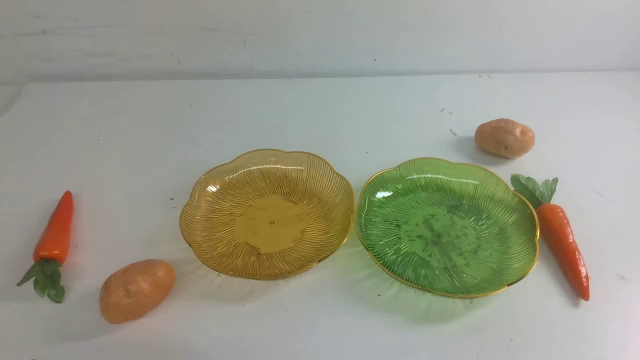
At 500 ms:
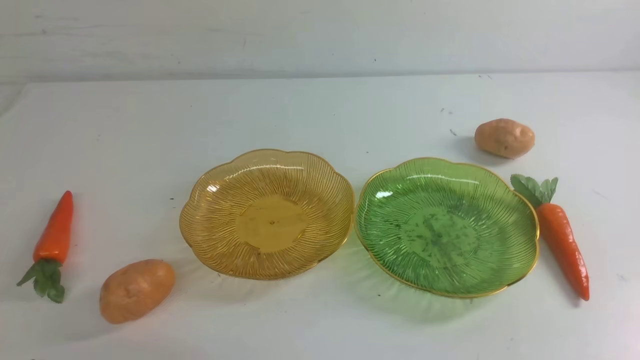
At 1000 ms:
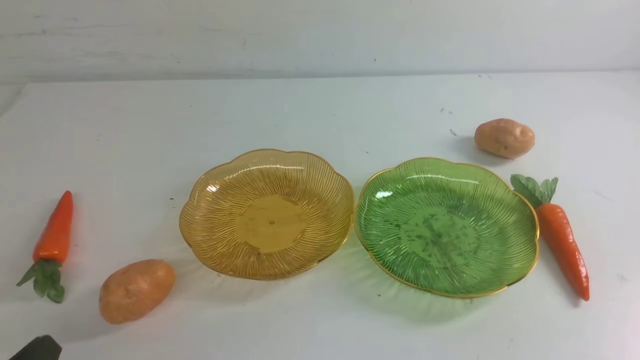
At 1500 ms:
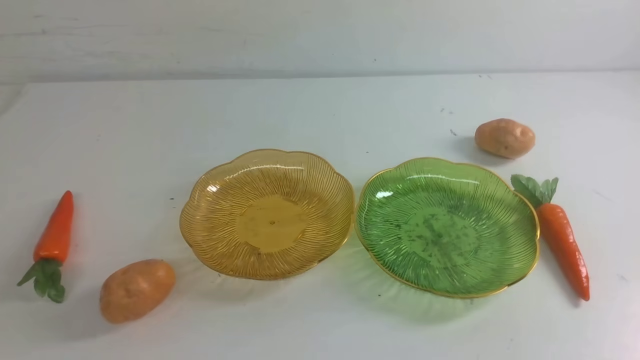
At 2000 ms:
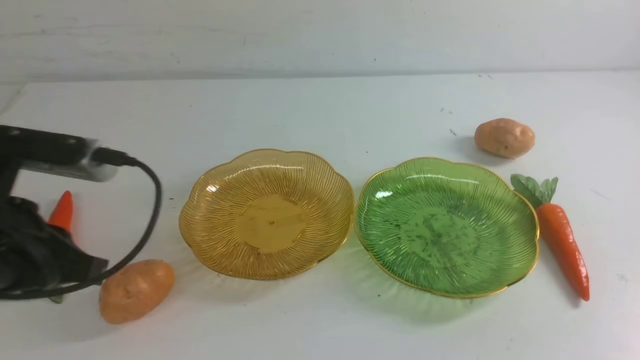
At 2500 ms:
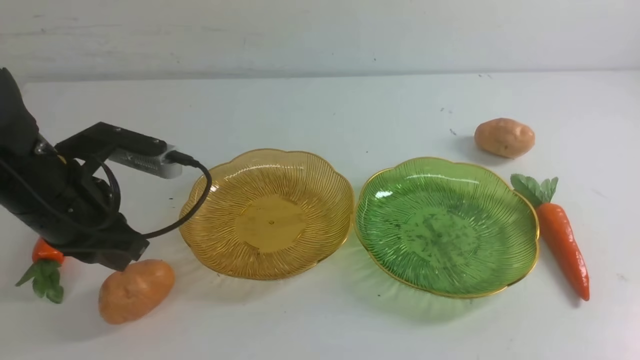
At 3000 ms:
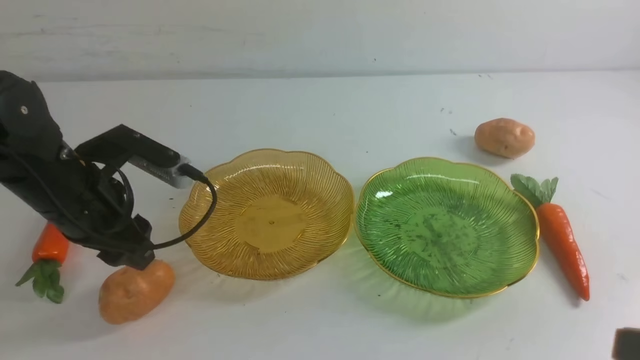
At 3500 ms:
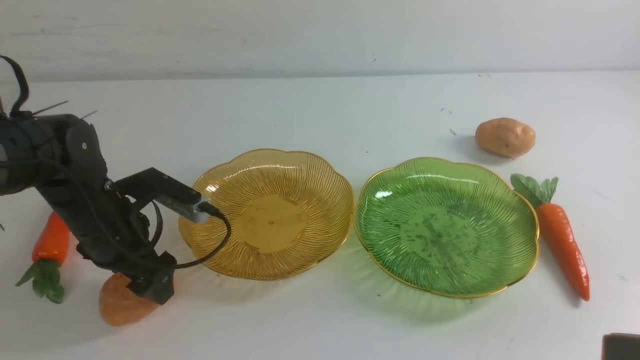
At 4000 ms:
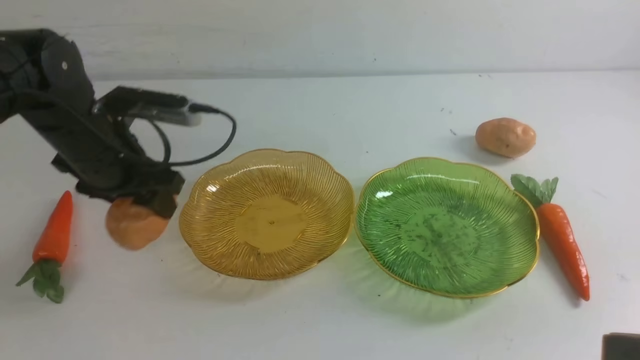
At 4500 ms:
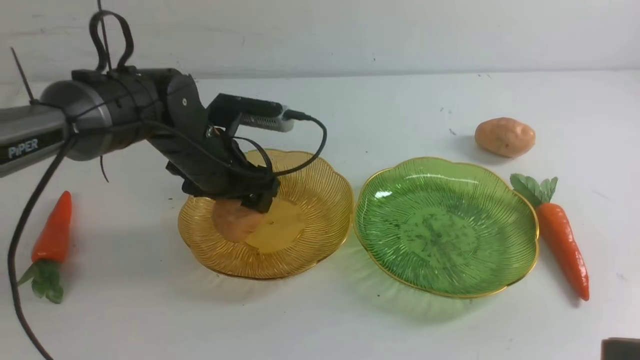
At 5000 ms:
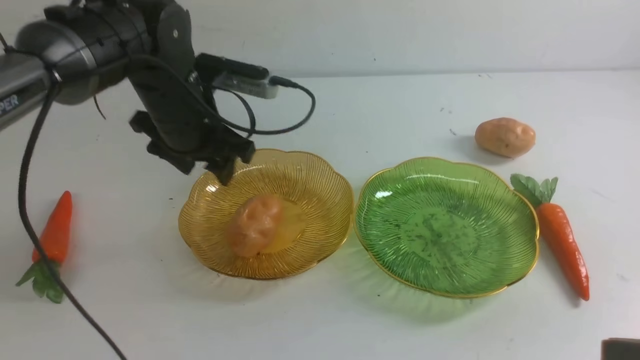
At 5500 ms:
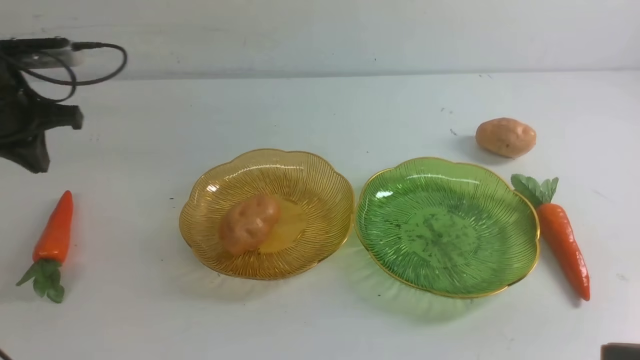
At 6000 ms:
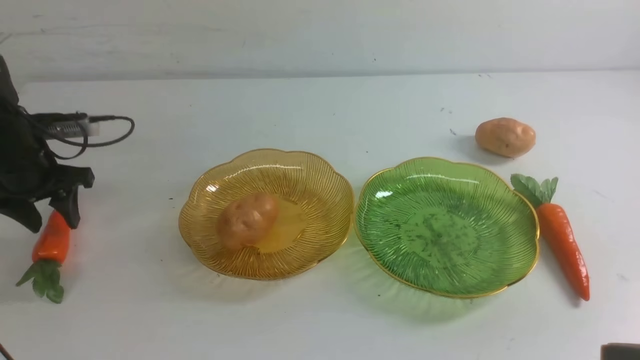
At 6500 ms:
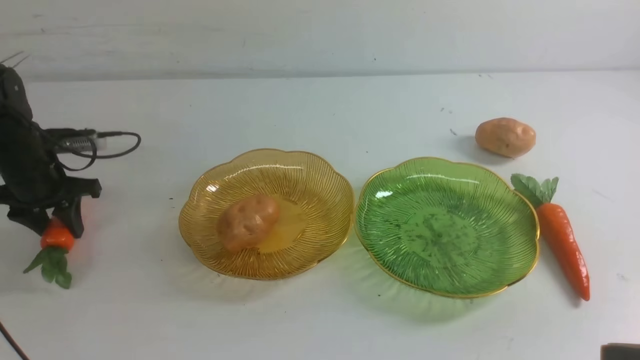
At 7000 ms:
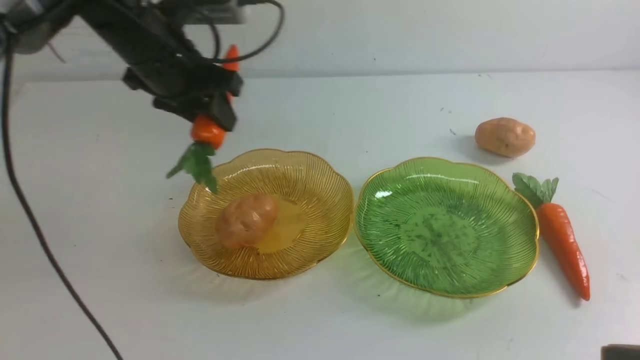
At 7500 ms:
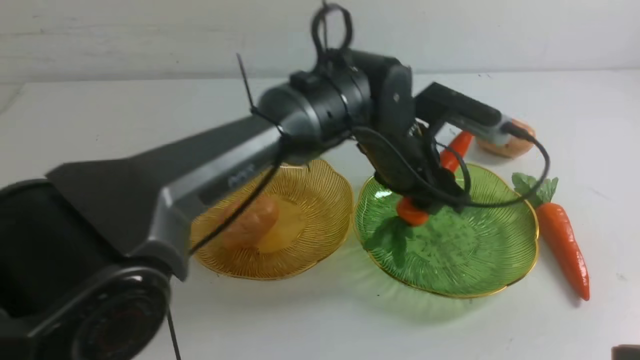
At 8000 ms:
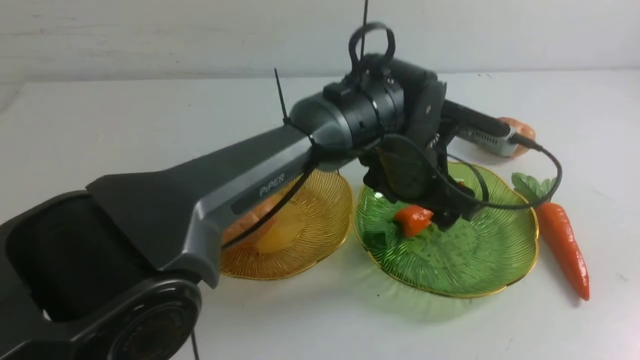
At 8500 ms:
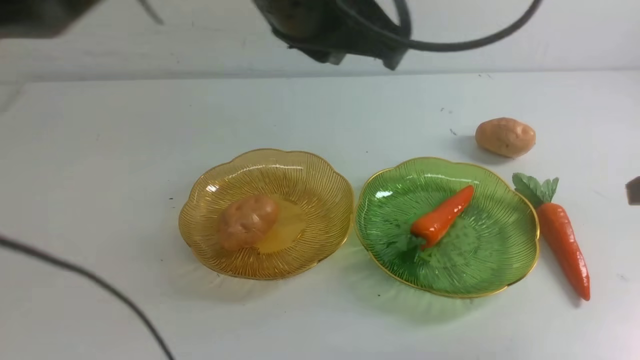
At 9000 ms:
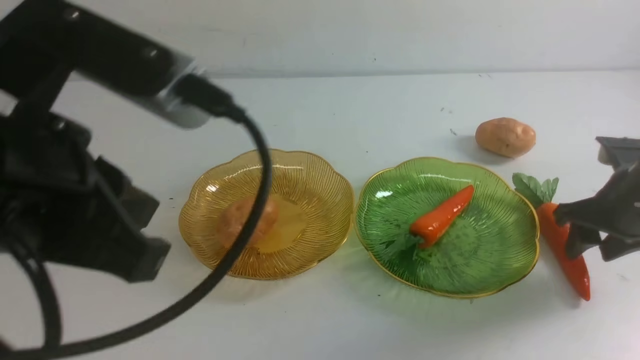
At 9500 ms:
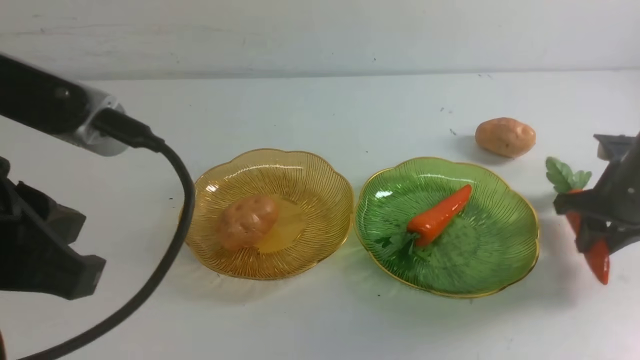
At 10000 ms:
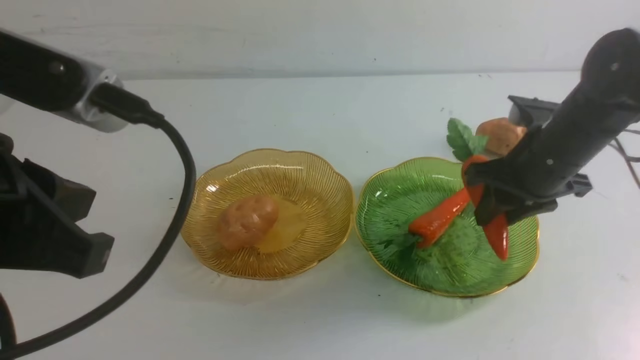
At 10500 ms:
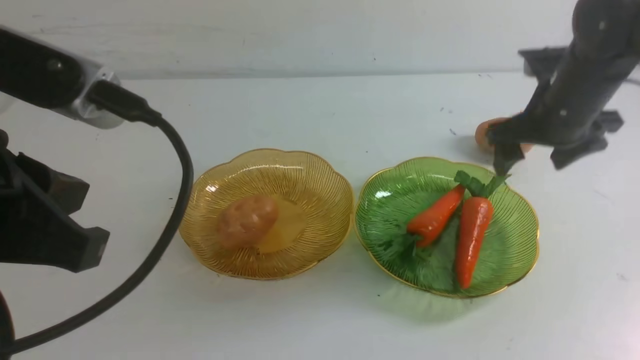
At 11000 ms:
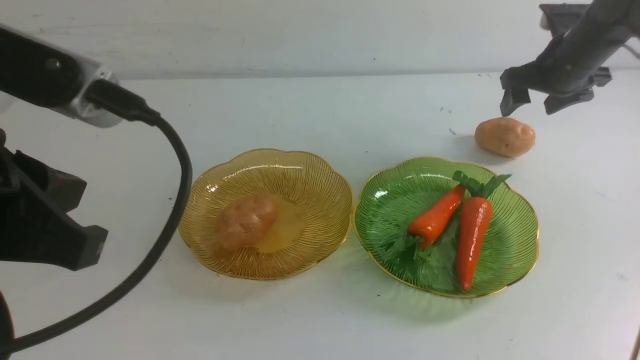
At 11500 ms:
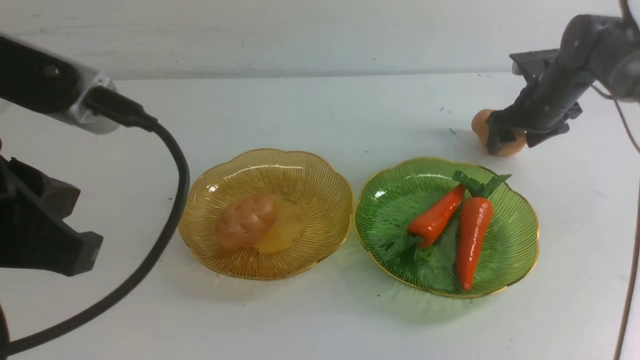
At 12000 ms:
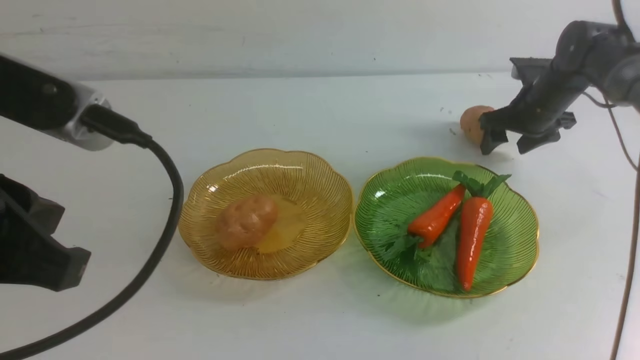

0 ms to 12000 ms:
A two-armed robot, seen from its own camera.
Step, 0 ms to 4500 ms: Grab a potato with your left arm and put it on the left plate.
Step, 5000 ms to 7500 ms: use the left arm to grab a carrot and put it into the right plate.
Step, 8000 ms to 10000 ms: use the right arm to grab a carrot and put it into the right plate.
0 ms to 2000 ms: The left gripper travels upward and forward by about 20 cm.
2000 ms to 4000 ms: The right gripper goes roughly 10 cm upward and to the left; the left gripper heads forward and downward, covering about 20 cm, and opens.
4000 ms to 6000 ms: The left gripper heads to the left, covering approximately 15 cm, and closes, then opens again.
6000 ms to 8000 ms: The right gripper travels forward by approximately 5 cm. Meanwhile the left gripper moves to the right, roughly 40 cm.
8000 ms to 10000 ms: The left gripper travels to the left, backward and upward by roughly 35 cm, and closes up. Meanwhile the right gripper shifts about 25 cm forward and downward, and opens.
10000 ms to 12000 ms: The right gripper is displaced forward by approximately 20 cm, and opens.

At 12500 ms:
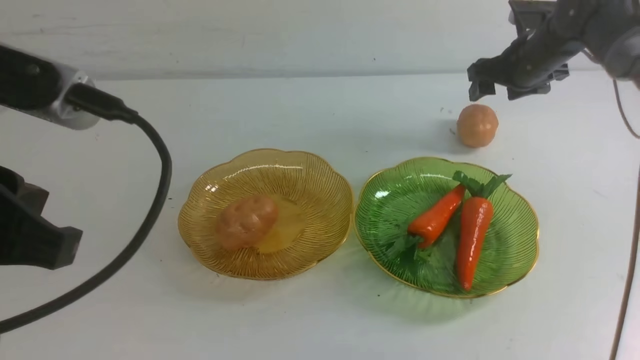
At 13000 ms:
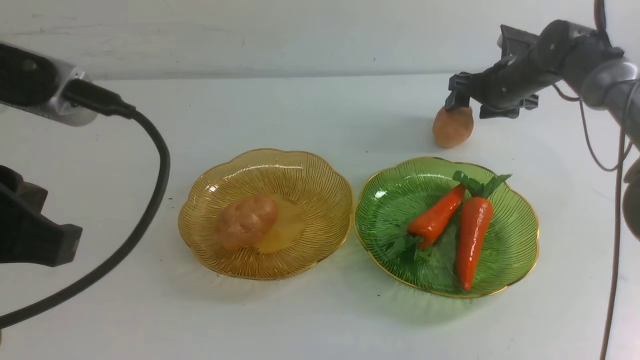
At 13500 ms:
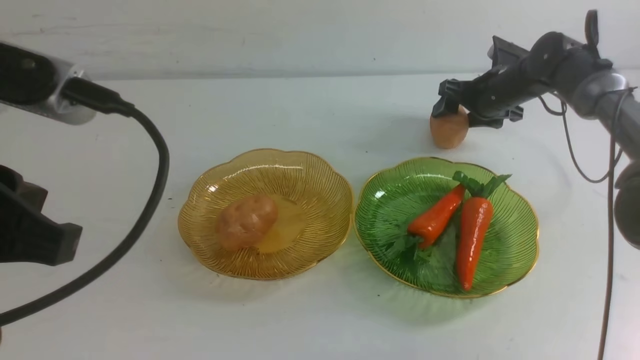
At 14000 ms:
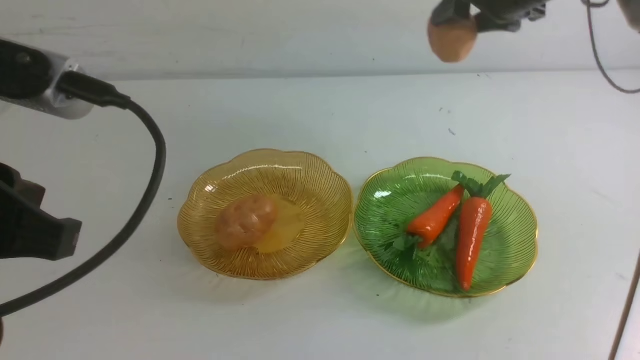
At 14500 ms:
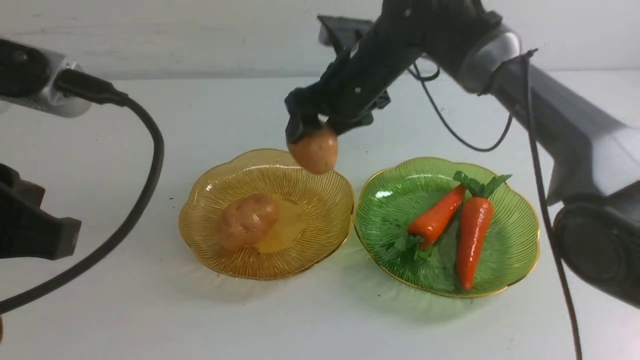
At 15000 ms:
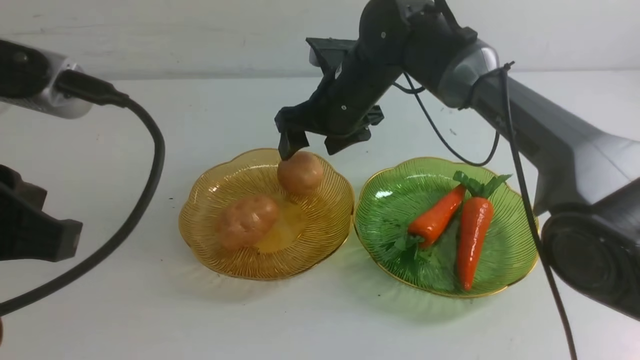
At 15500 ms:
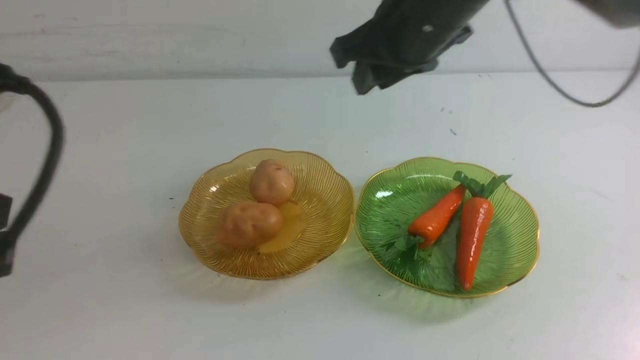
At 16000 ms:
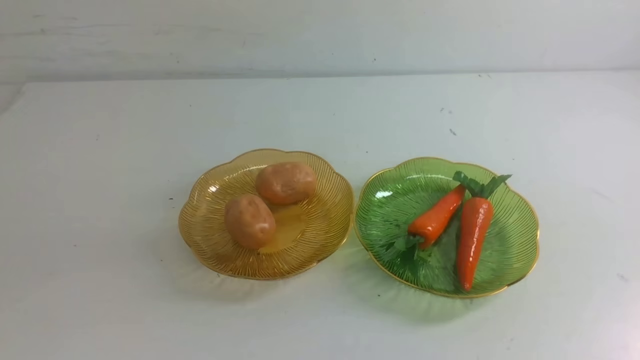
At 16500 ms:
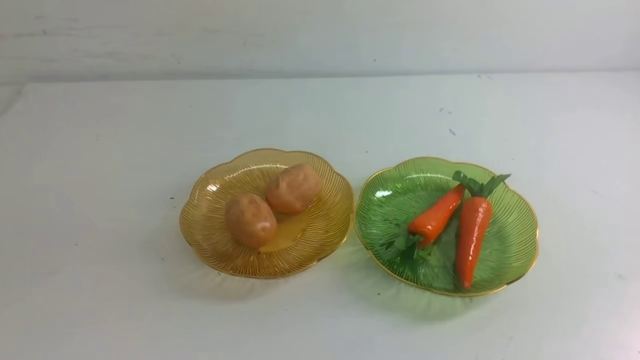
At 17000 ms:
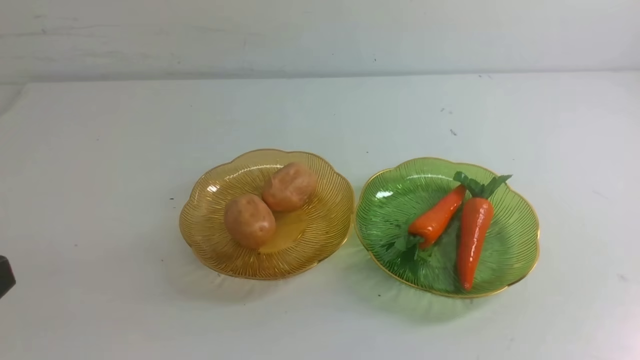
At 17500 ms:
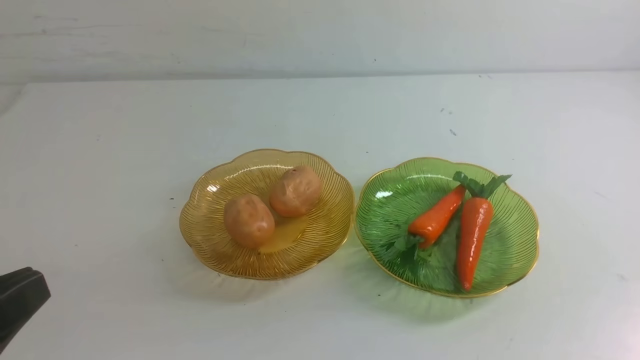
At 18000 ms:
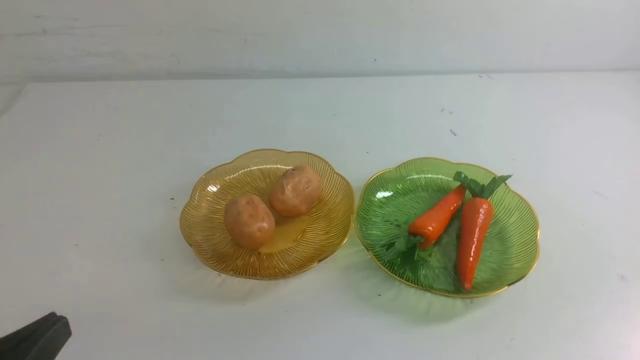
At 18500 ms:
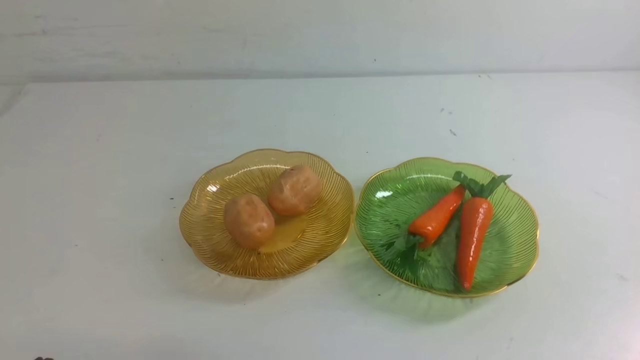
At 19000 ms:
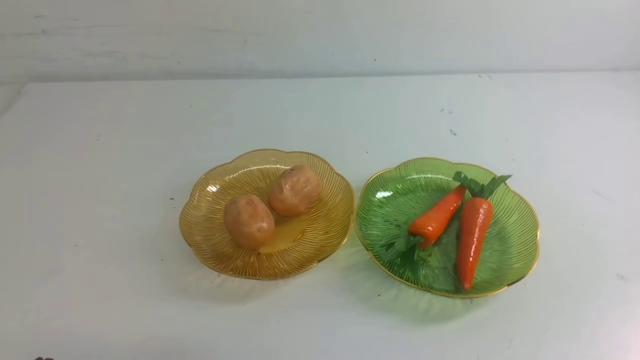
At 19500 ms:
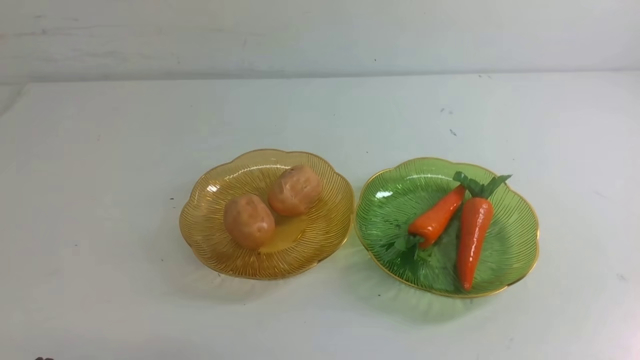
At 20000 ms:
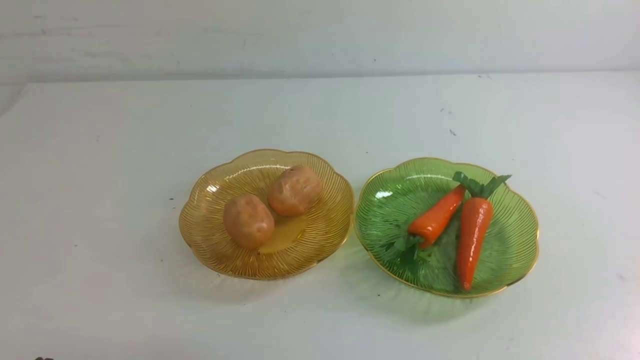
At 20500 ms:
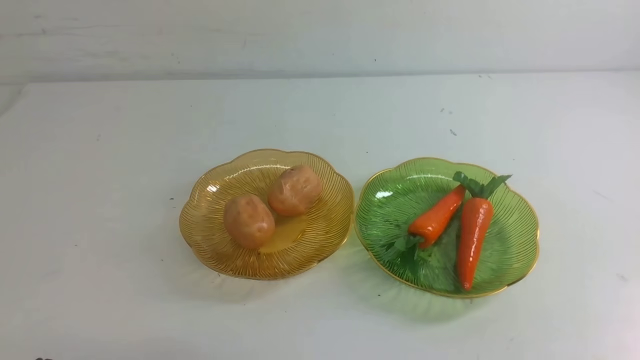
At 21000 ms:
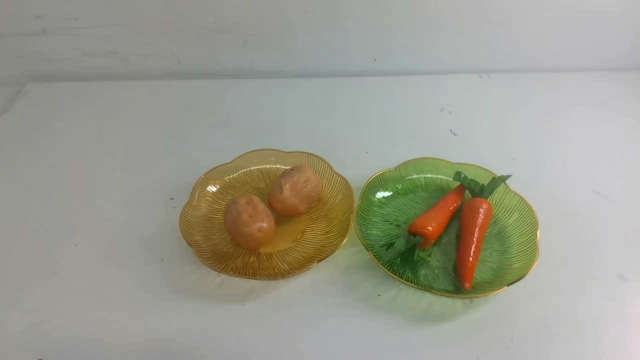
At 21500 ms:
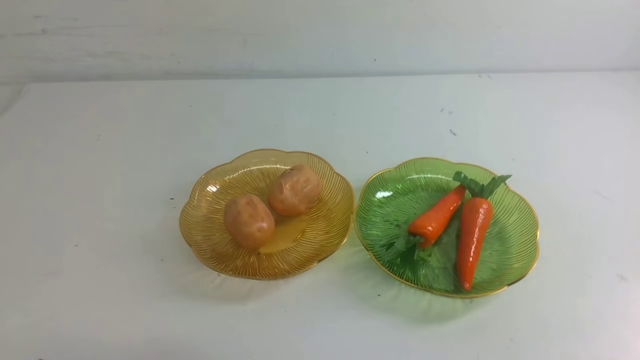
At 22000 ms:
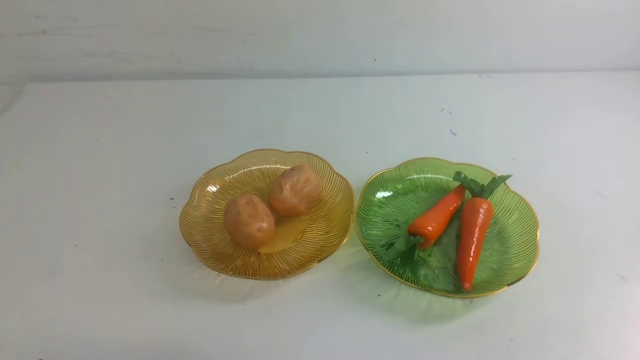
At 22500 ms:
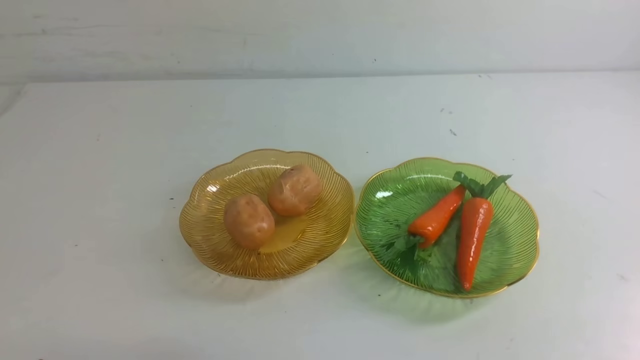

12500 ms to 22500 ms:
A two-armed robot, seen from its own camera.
Step, 12500 ms to 14500 ms: Grab a potato with your right arm and put it on the left plate.
12500 ms to 14500 ms: The right gripper is displaced to the left and backward by about 25 cm.
14500 ms to 16500 ms: The right gripper shifts roughly 50 cm backward and to the right, and closes up, while the left gripper travels backward by some 5 cm.
